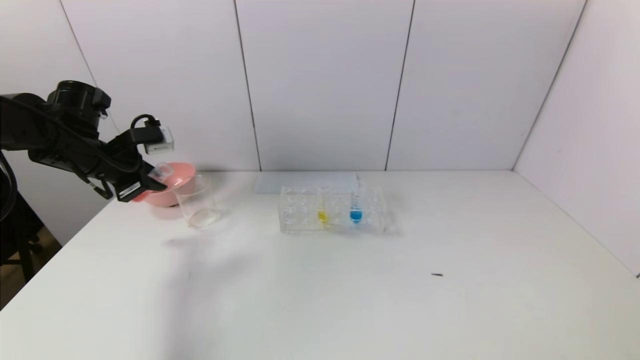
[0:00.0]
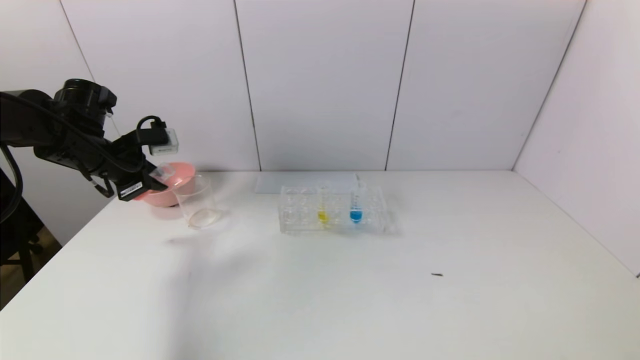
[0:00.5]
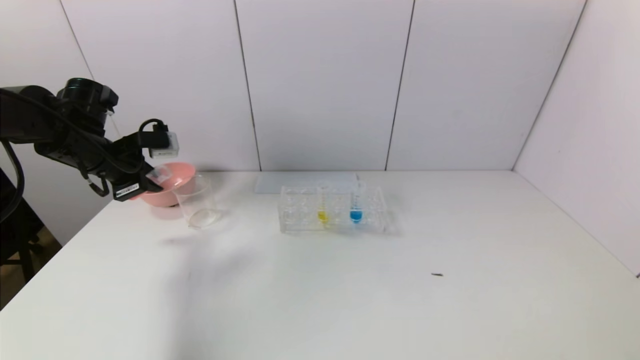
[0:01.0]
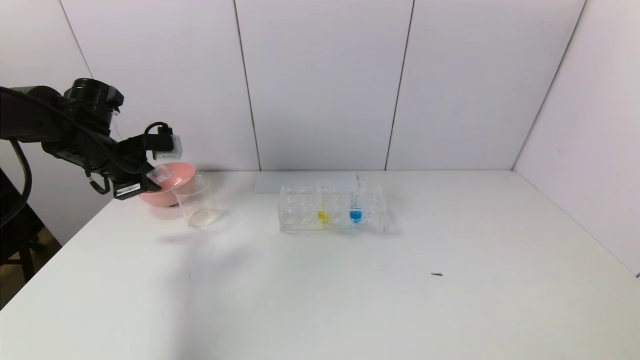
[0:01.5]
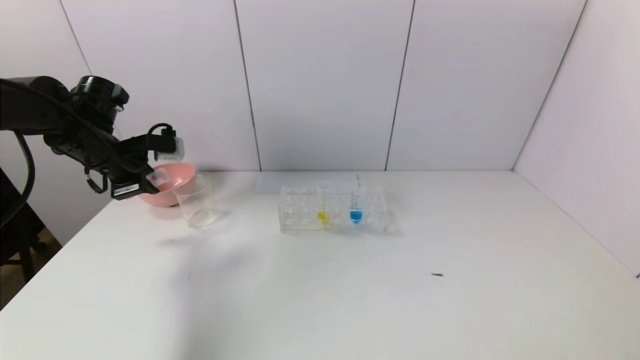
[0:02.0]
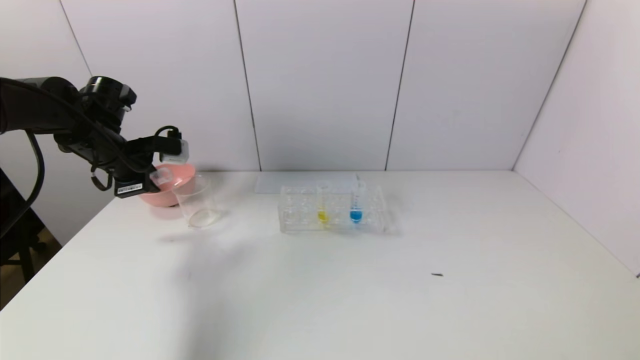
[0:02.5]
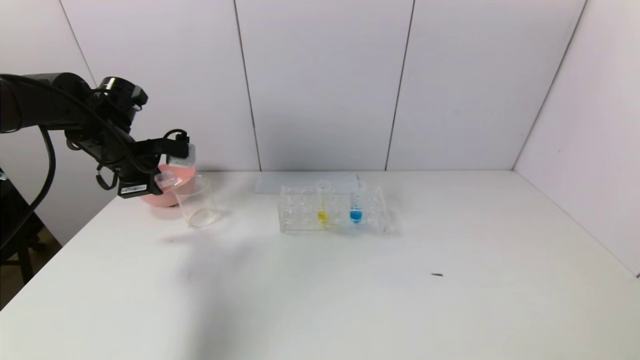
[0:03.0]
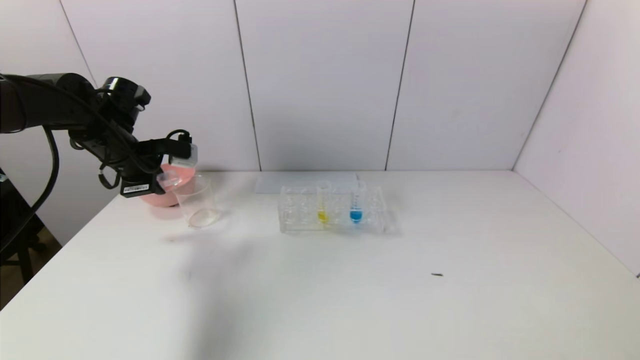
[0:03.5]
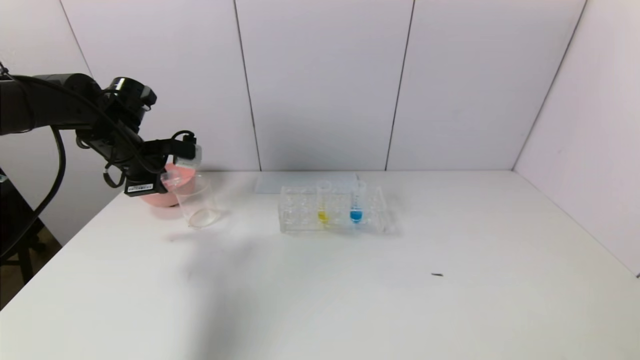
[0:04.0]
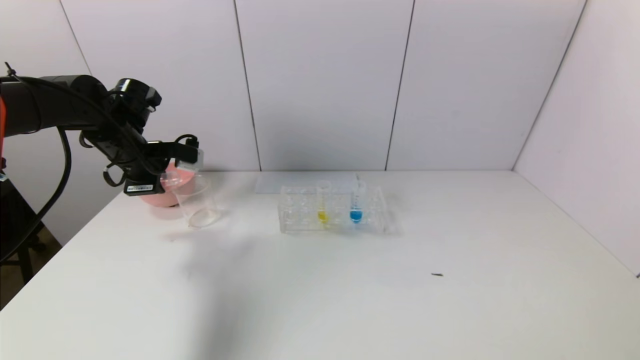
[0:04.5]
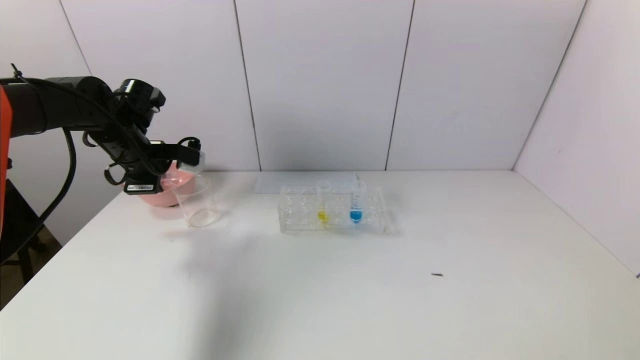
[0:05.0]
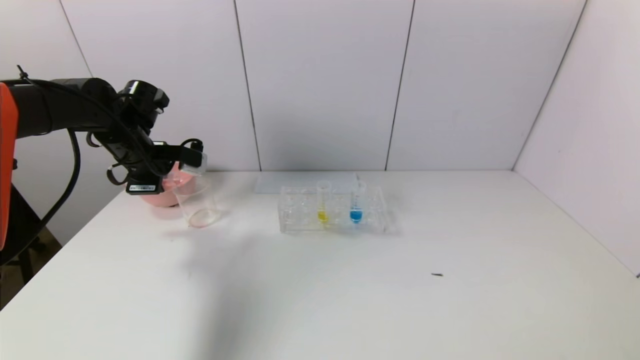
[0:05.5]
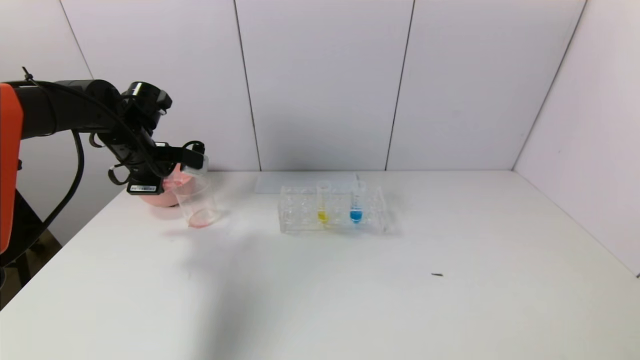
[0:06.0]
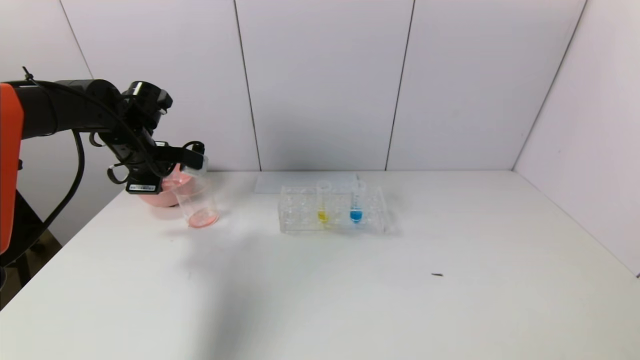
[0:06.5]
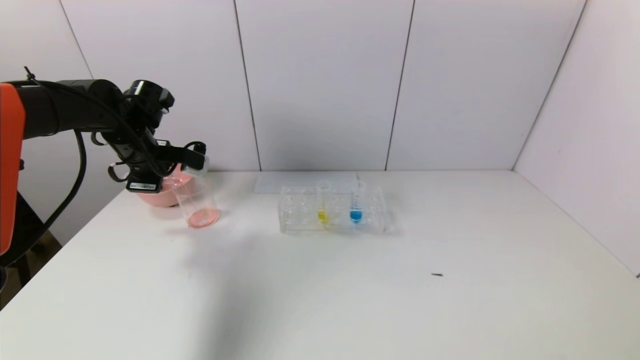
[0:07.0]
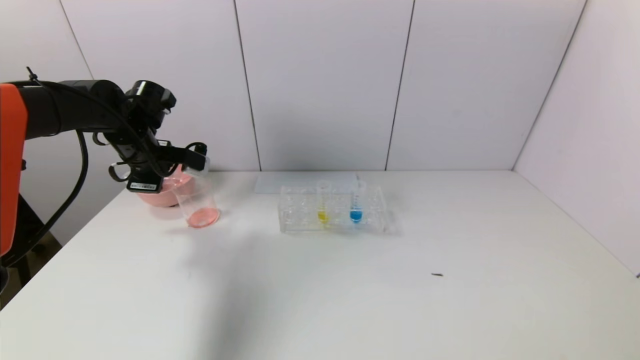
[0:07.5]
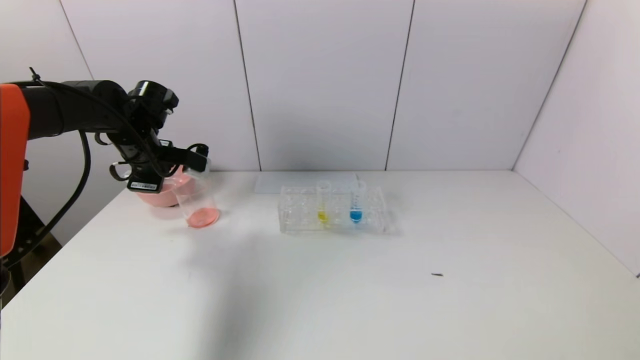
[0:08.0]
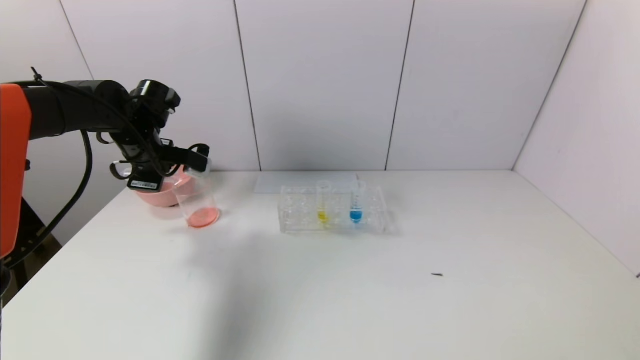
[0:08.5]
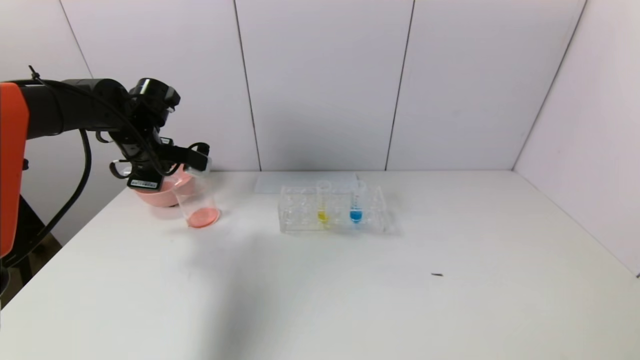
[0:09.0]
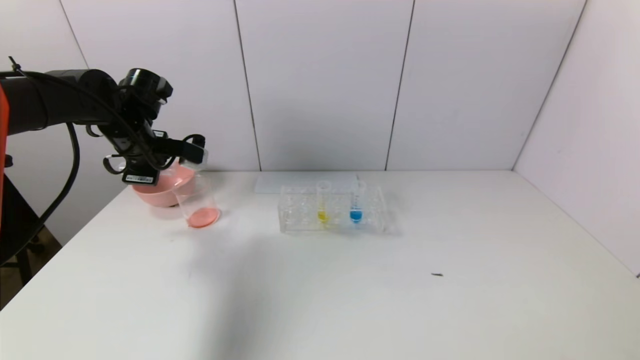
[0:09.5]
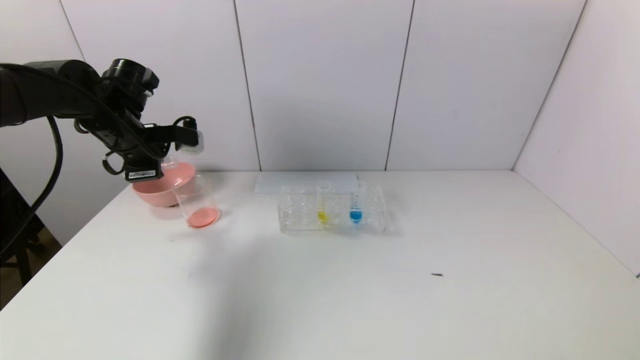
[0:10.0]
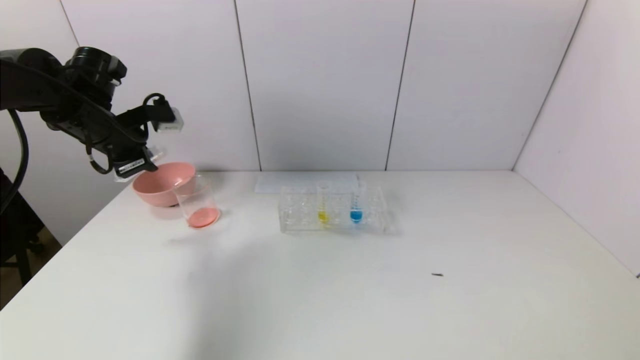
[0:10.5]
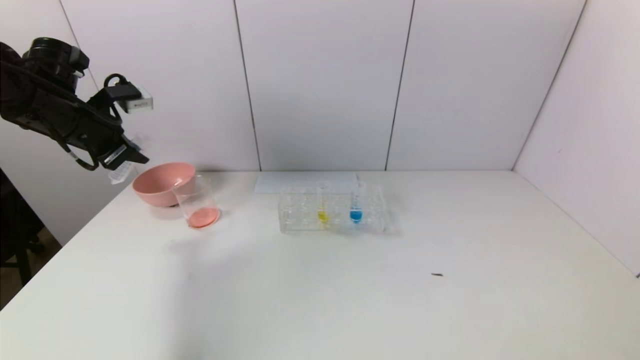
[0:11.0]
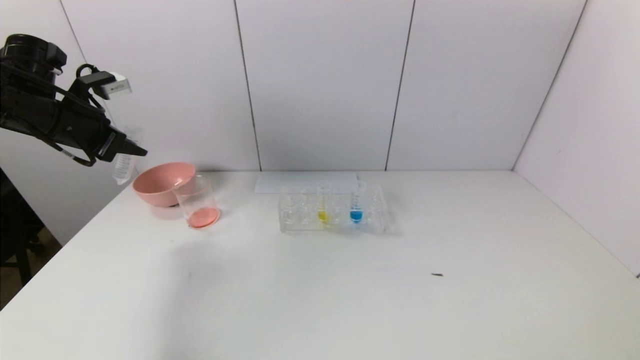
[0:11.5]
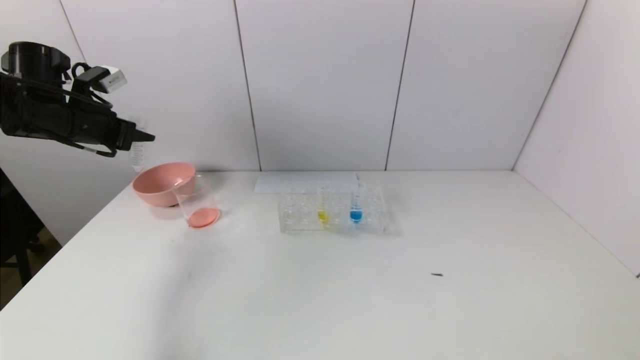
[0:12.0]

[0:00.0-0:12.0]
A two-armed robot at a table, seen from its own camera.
Task of the whole recording: pick up the test tube with yellow pigment and the test tube with red pigment by grippers and pour them into the beaker.
Step, 0:00.0 to 0:09.0: Pour the red reagent into the graduated cylinder with the left gripper.
0:00.0 to 0:02.0: The grippers move only a little.
0:02.0 to 0:04.0: The grippers move only a little.
0:04.0 to 0:10.0: The grippers stay close to where they were, moving slightly.
0:10.0 to 0:12.0: The left gripper travels to the left by approximately 10 cm.

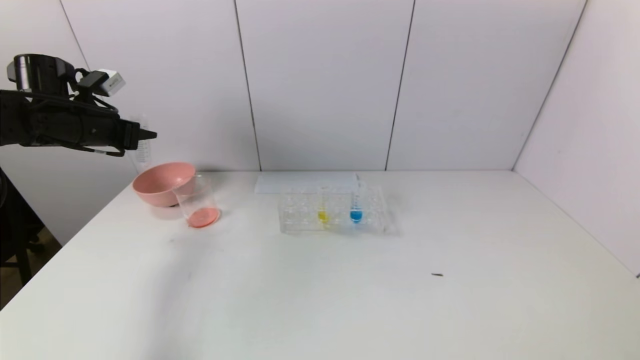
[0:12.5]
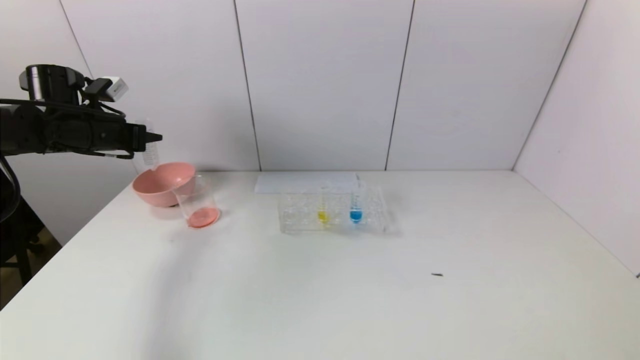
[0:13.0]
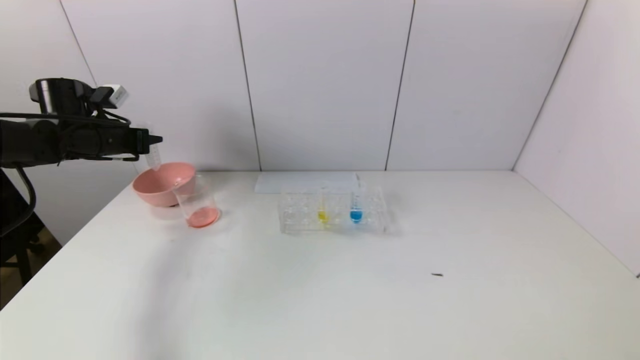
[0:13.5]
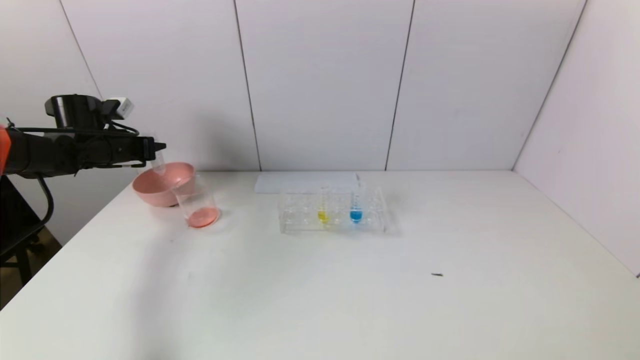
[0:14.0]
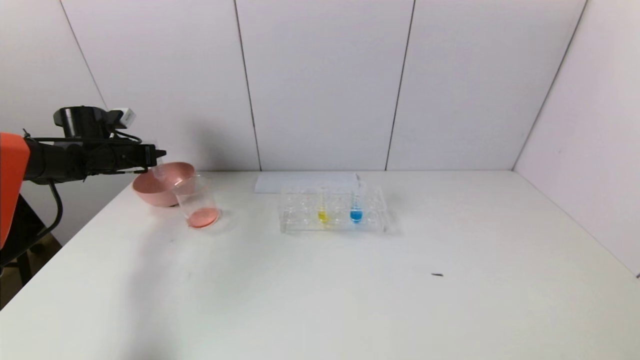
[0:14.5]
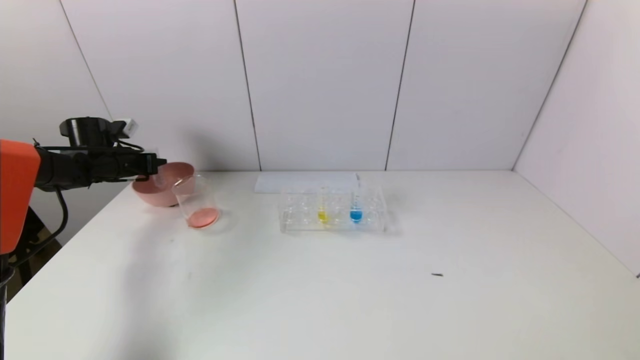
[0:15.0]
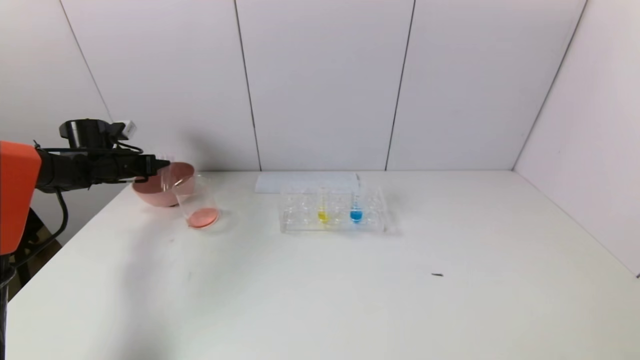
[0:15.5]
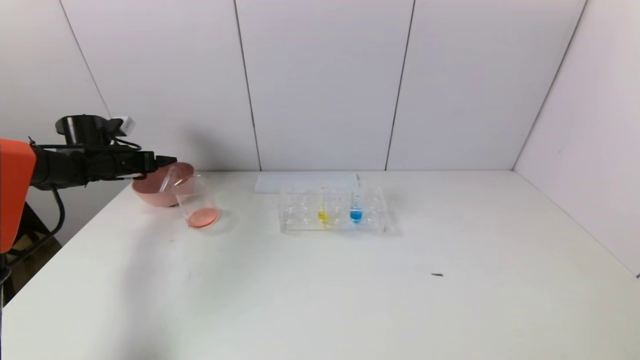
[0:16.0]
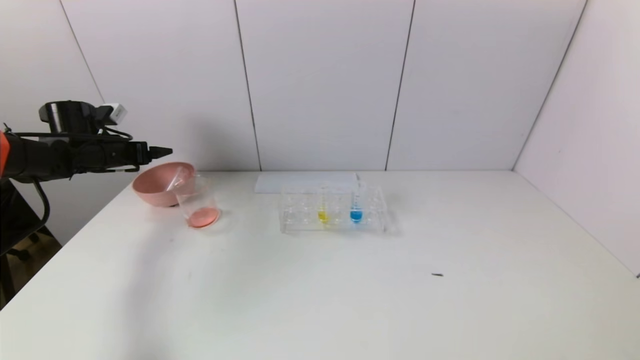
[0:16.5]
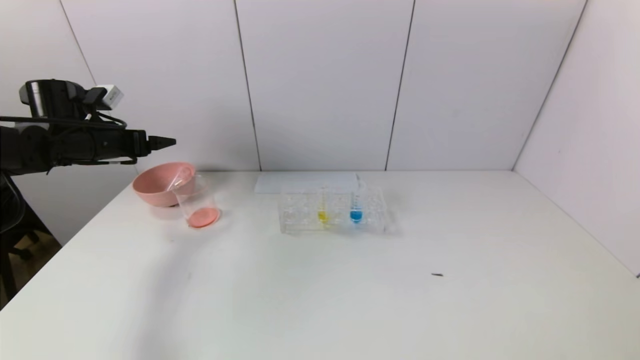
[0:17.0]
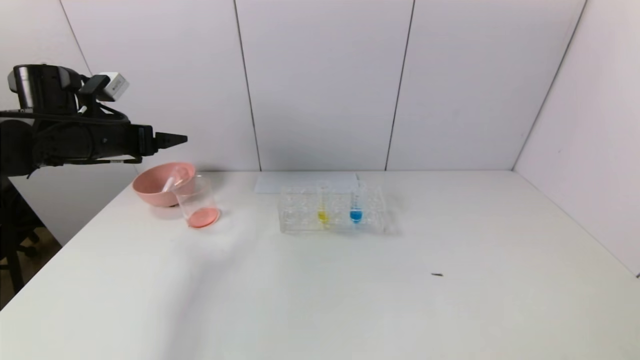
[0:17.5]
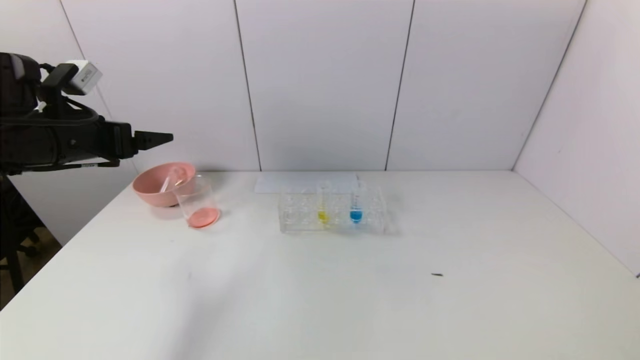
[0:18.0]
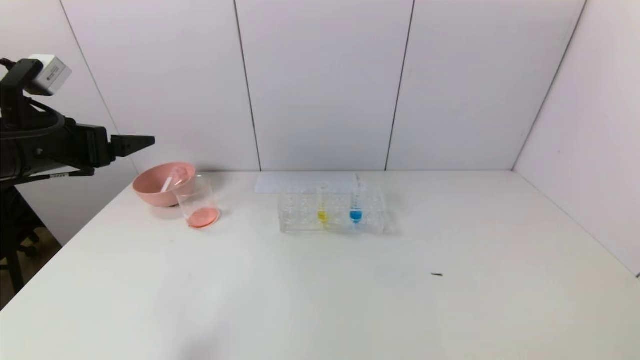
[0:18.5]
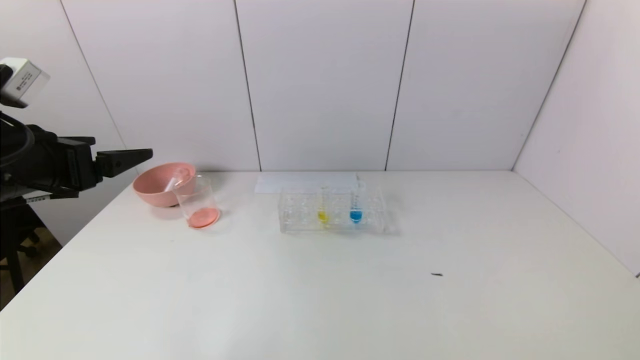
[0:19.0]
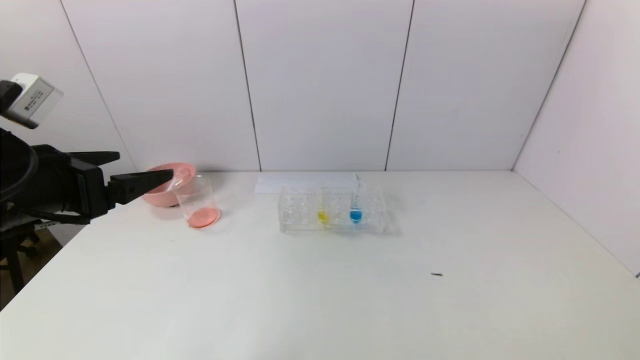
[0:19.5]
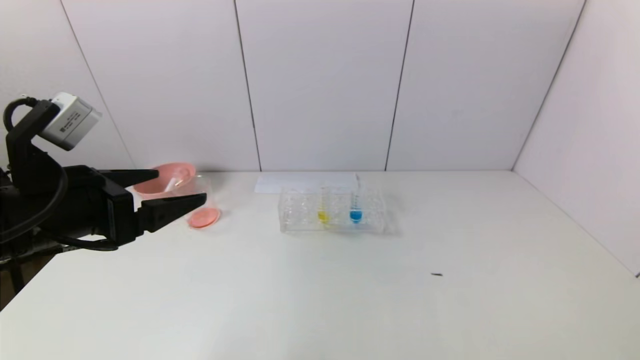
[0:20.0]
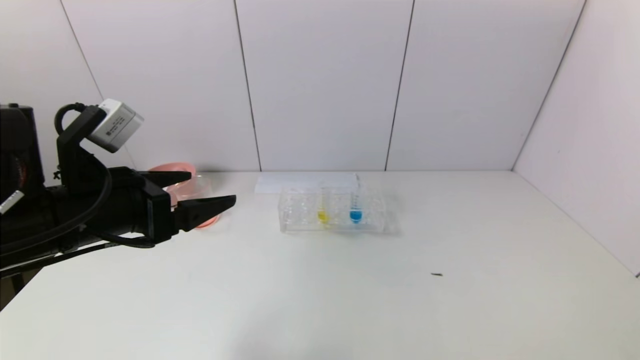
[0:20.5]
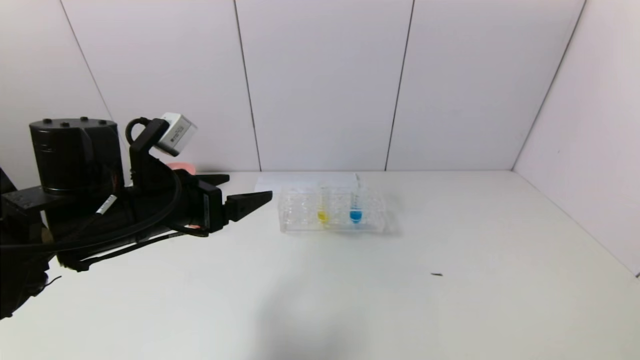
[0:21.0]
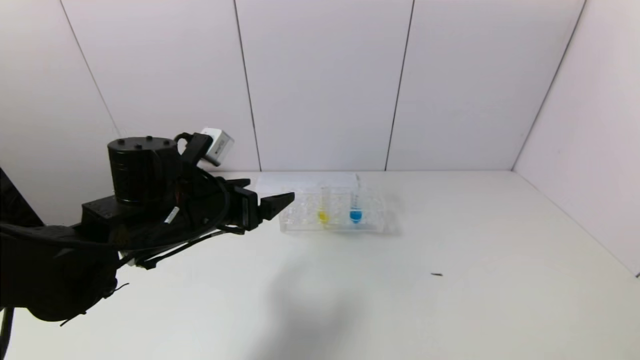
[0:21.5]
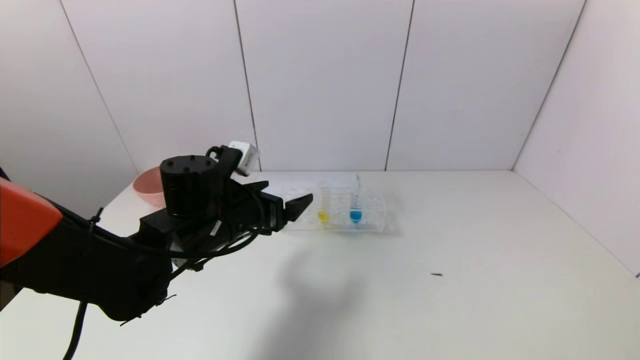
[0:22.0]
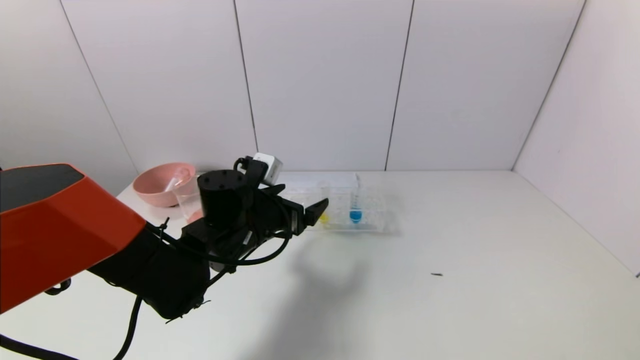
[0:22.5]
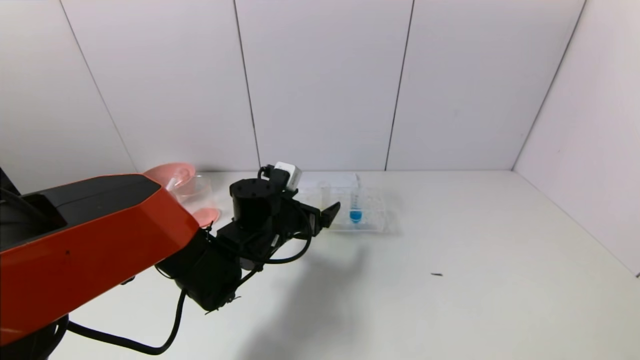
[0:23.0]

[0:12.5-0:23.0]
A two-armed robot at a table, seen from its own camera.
Task of the whole recording: pick up the test tube with yellow pigment and the test tube with red pigment by grippers and pour them into the beaker.
Step, 0:12.5 to 0:15.5: Place the test tube into the pink bowl with the left gripper.
0:12.5 to 0:14.5: The left gripper travels downward and forward by roughly 10 cm.
0:14.5 to 0:16.5: The left gripper opens its fingers.
0:16.5 to 0:19.0: The left gripper shifts approximately 25 cm backward and to the right.
0:19.0 to 0:21.0: The left gripper is displaced to the right and downward by some 15 cm.
0:21.0 to 0:23.0: The left gripper shifts approximately 20 cm to the right, downward and forward.
